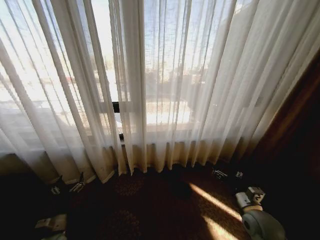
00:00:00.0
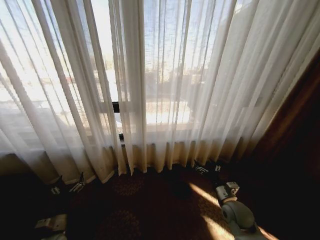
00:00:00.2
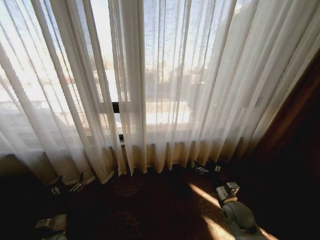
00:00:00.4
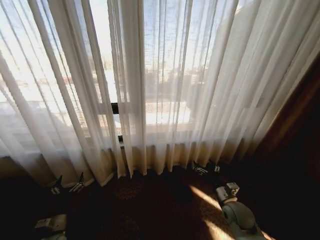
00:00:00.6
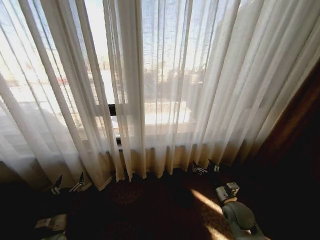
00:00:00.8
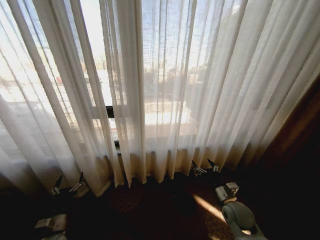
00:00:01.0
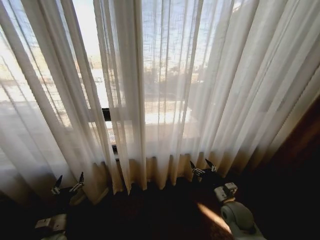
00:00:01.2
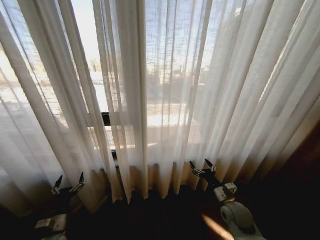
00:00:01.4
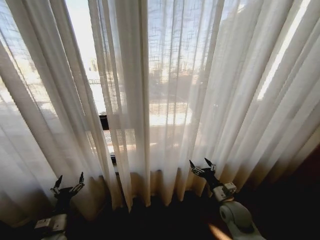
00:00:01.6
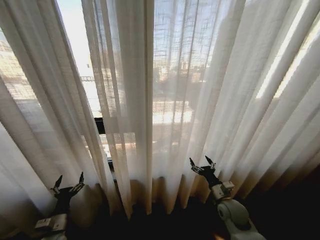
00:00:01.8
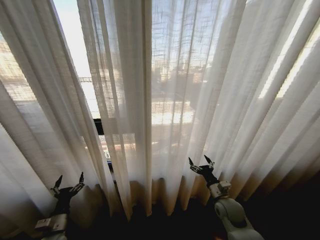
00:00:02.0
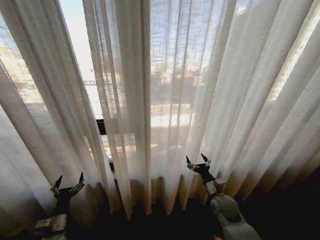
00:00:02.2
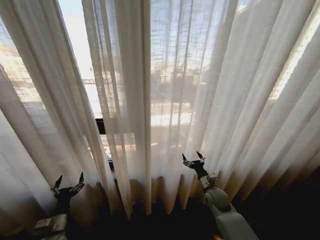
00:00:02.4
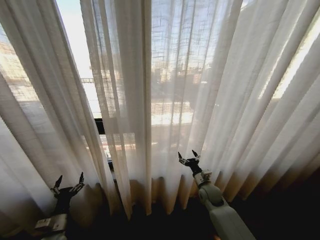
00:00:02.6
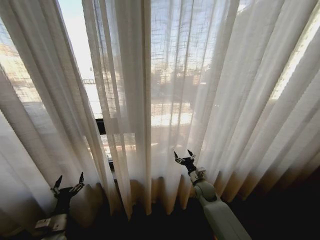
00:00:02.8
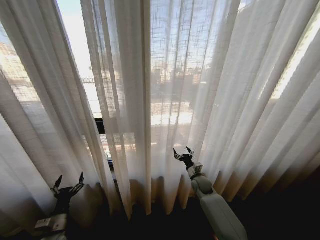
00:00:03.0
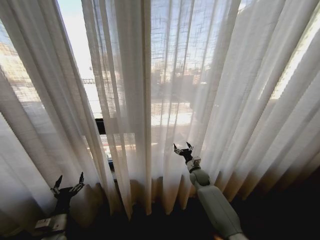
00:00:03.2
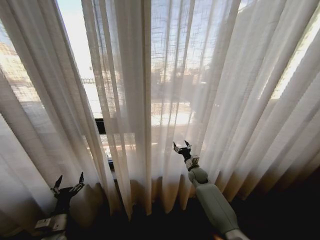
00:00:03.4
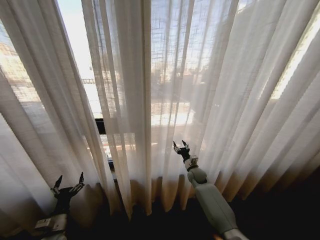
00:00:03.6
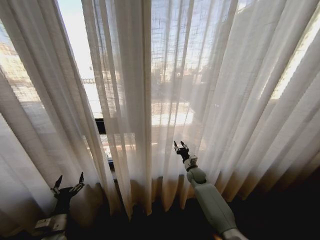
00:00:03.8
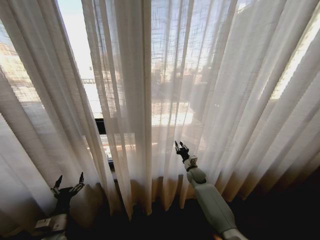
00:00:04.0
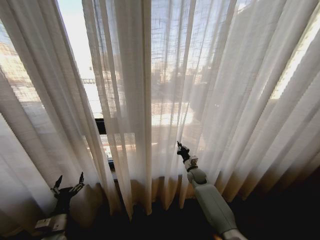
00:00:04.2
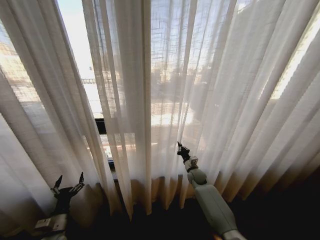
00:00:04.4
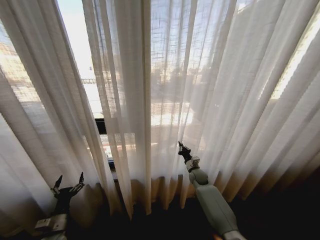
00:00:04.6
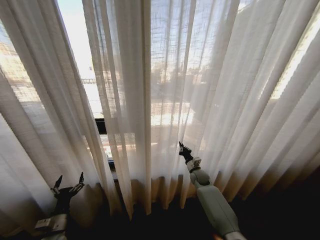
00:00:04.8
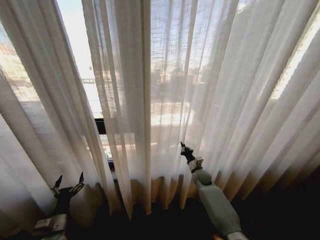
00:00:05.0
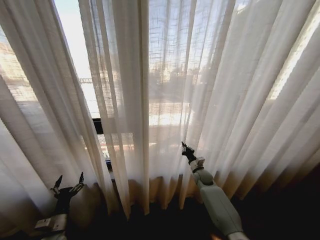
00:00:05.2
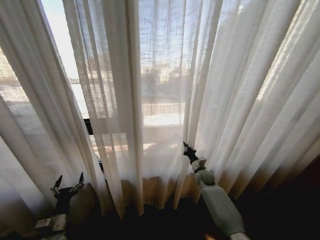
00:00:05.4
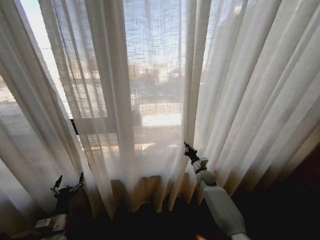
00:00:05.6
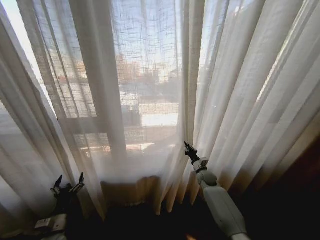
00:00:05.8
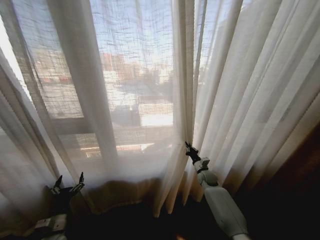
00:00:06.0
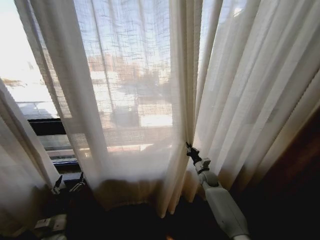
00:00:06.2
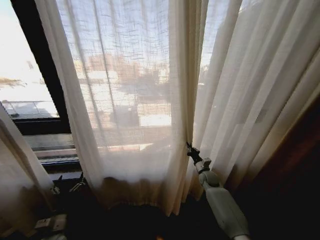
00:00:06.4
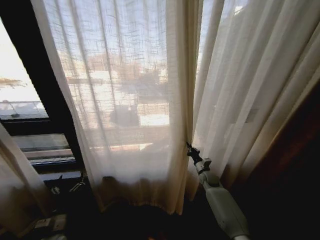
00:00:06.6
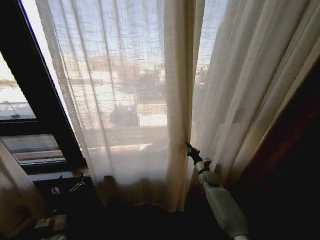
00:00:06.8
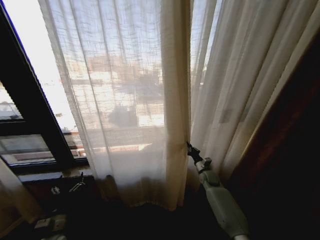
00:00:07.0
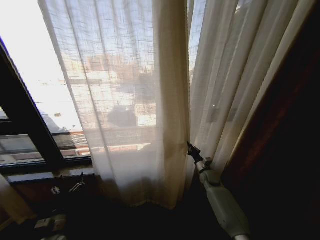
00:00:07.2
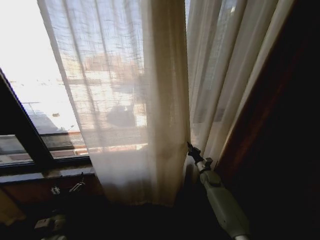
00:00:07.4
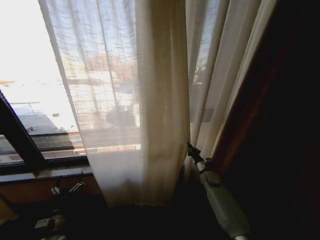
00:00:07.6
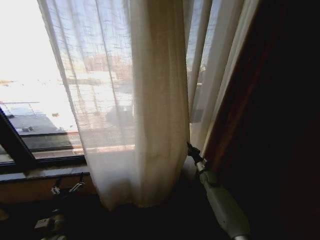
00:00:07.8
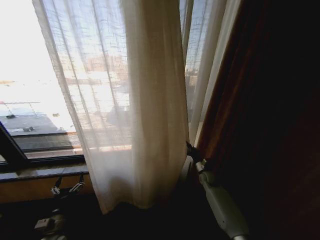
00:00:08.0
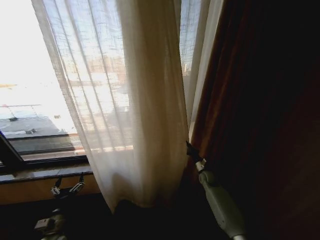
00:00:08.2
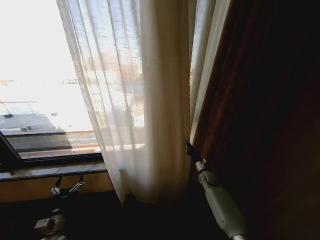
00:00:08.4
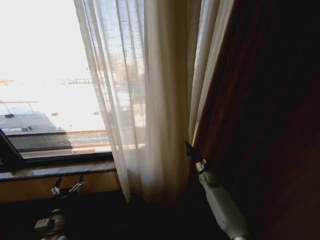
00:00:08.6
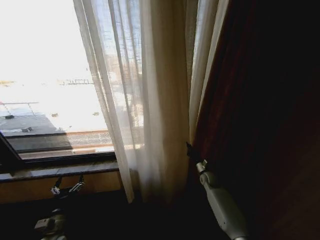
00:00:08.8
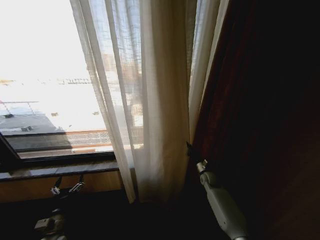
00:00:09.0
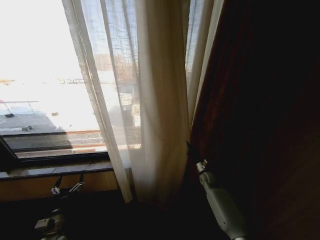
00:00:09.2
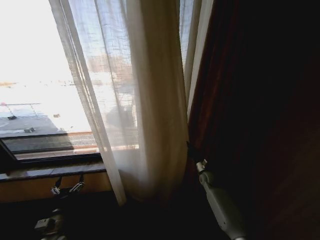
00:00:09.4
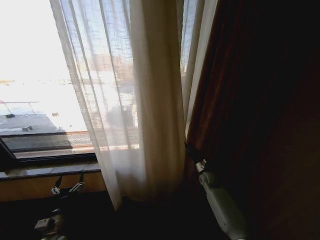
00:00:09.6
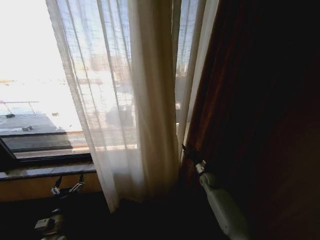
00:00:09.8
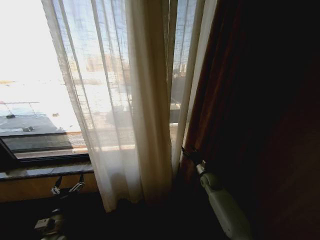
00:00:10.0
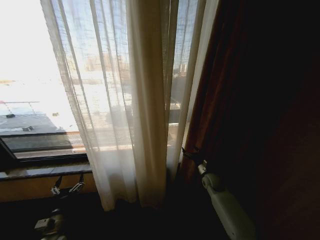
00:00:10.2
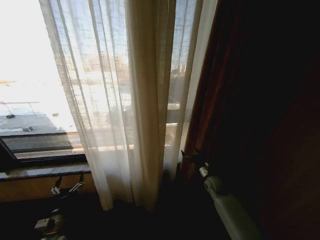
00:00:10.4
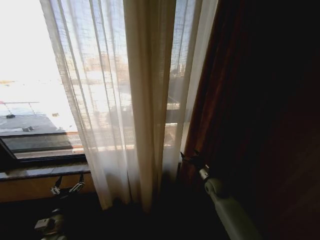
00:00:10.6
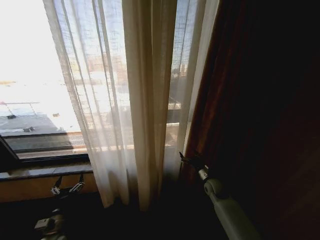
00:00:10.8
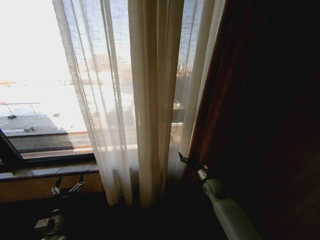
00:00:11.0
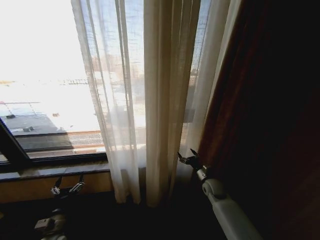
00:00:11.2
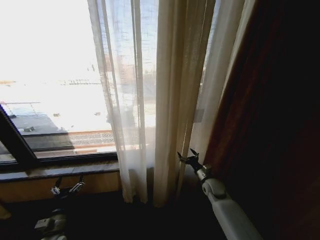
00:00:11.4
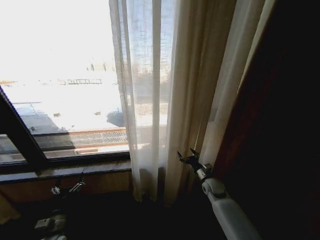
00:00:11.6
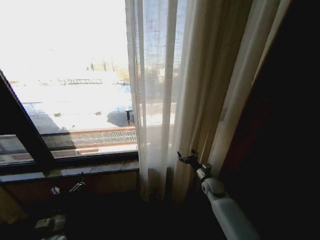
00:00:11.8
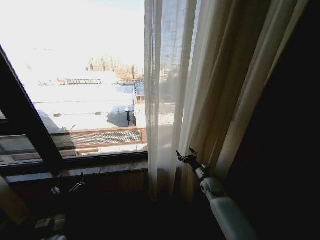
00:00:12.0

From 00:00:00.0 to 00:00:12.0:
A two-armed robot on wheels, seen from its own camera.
Task of the whole recording: Open the curtains by pulling them apart, changing their state from closed to fully open.
From 00:00:01.6 to 00:00:03.0: The right gripper moves forward and to the left, approximately 15 cm.
From 00:00:03.0 to 00:00:04.4: The right gripper goes about 5 cm forward, and closes its fingers.
From 00:00:04.4 to 00:00:06.0: The right gripper travels to the right by roughly 5 cm.
From 00:00:09.0 to 00:00:10.4: The right gripper changes place by approximately 5 cm, and opens.

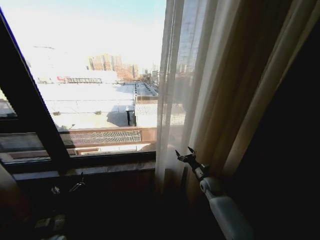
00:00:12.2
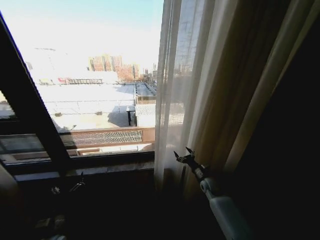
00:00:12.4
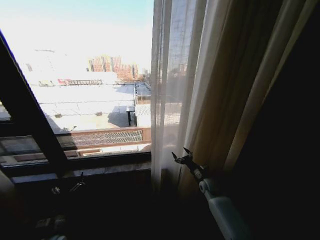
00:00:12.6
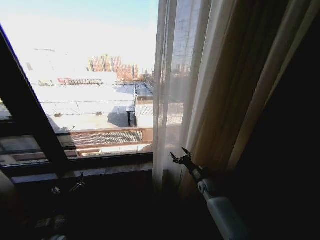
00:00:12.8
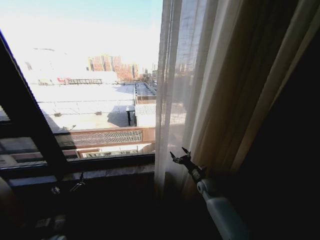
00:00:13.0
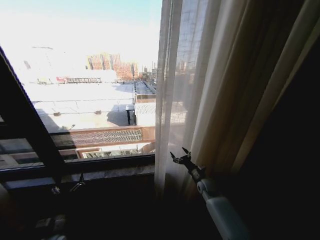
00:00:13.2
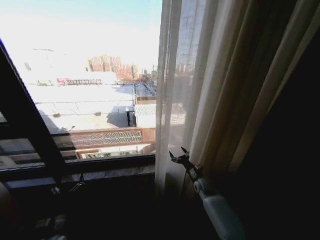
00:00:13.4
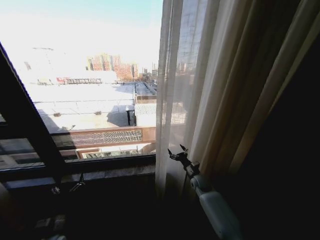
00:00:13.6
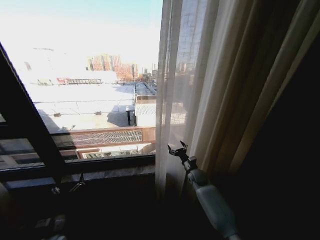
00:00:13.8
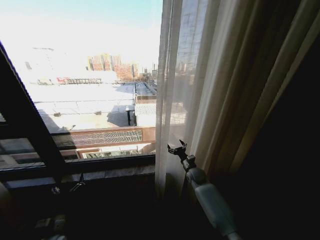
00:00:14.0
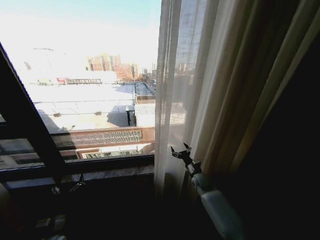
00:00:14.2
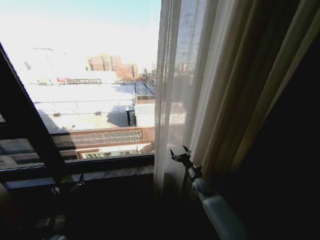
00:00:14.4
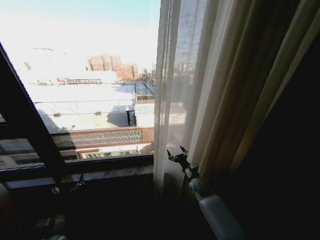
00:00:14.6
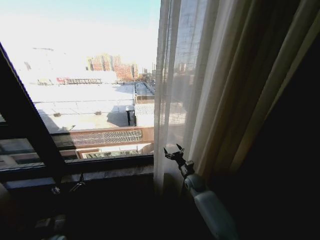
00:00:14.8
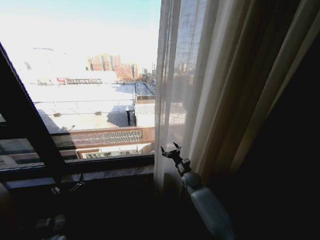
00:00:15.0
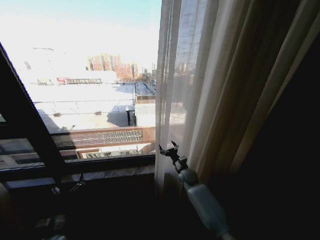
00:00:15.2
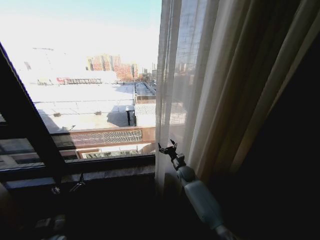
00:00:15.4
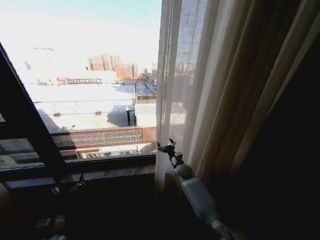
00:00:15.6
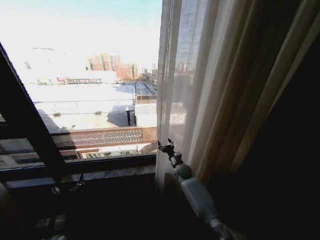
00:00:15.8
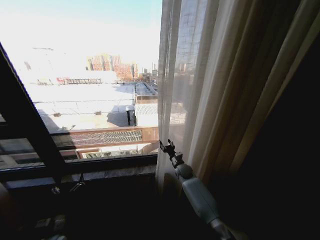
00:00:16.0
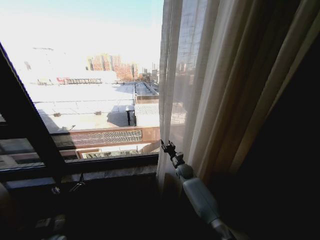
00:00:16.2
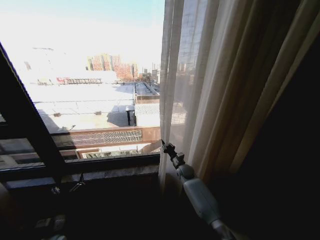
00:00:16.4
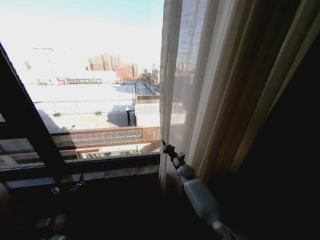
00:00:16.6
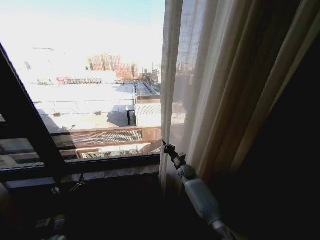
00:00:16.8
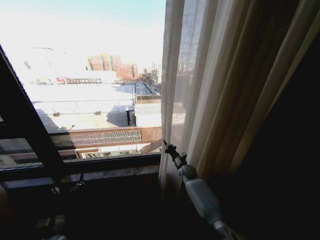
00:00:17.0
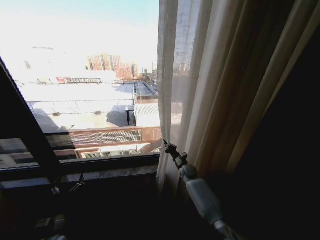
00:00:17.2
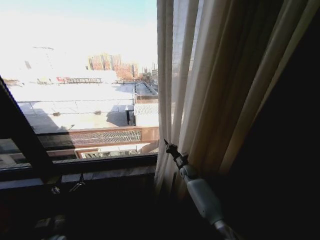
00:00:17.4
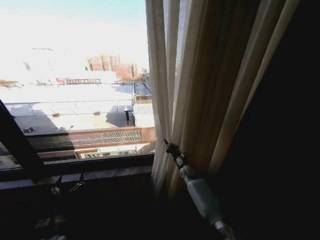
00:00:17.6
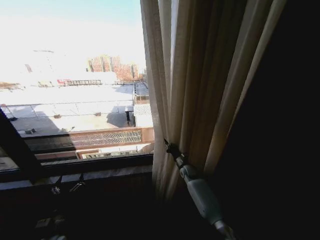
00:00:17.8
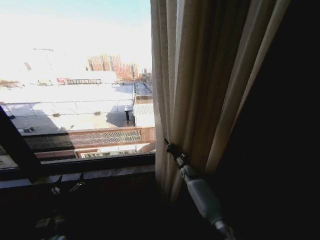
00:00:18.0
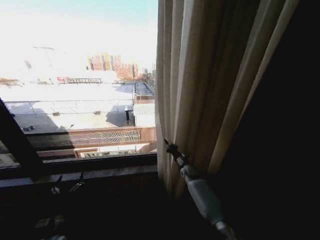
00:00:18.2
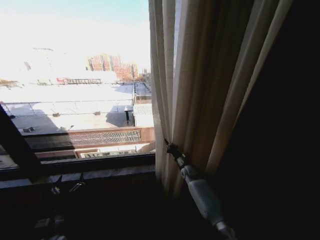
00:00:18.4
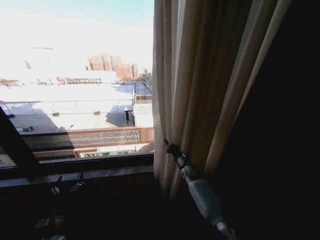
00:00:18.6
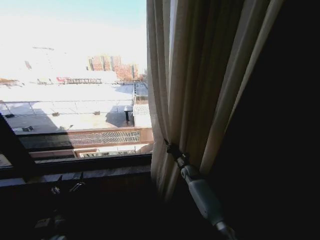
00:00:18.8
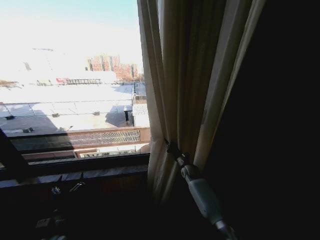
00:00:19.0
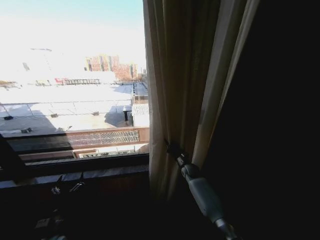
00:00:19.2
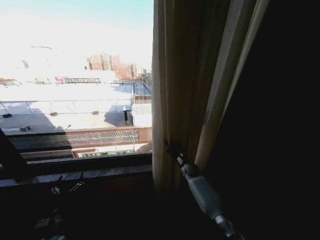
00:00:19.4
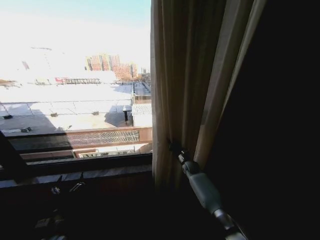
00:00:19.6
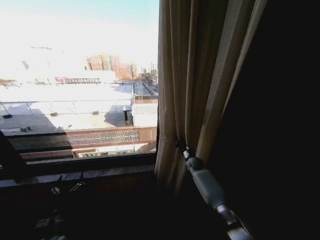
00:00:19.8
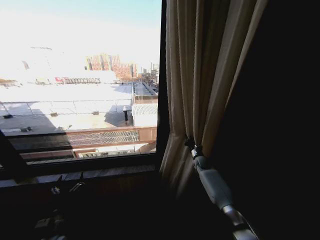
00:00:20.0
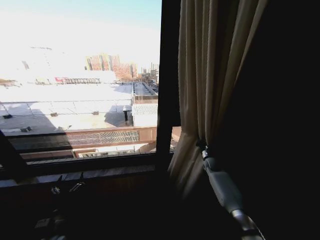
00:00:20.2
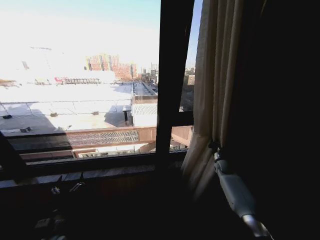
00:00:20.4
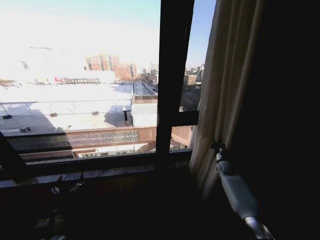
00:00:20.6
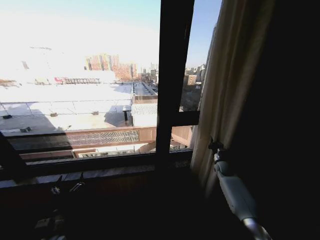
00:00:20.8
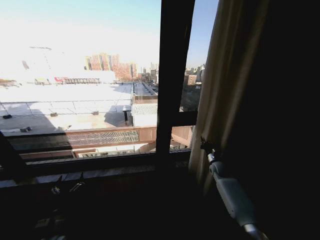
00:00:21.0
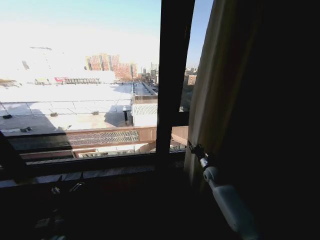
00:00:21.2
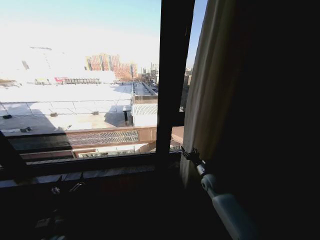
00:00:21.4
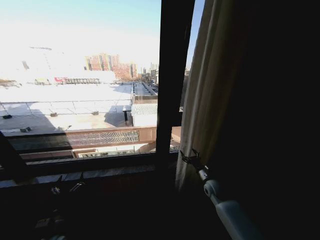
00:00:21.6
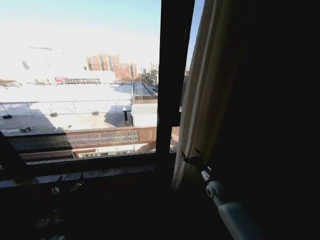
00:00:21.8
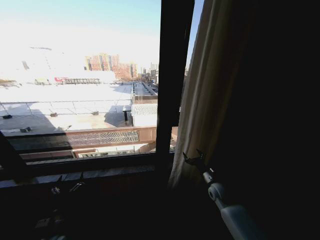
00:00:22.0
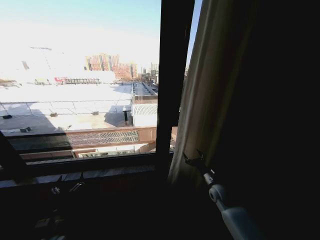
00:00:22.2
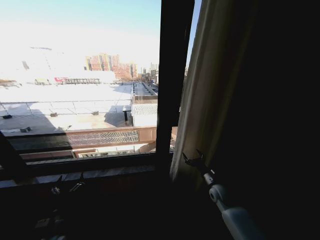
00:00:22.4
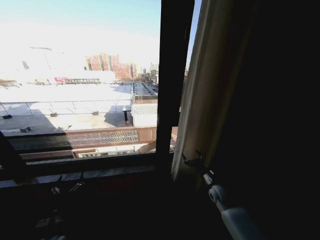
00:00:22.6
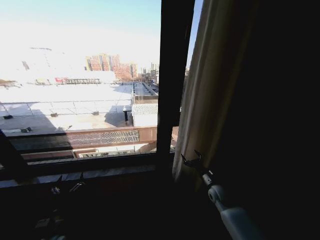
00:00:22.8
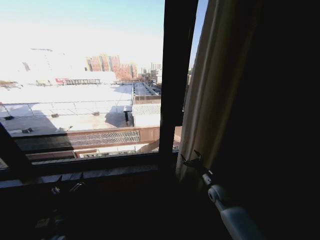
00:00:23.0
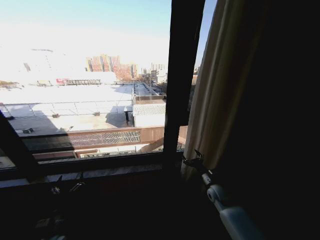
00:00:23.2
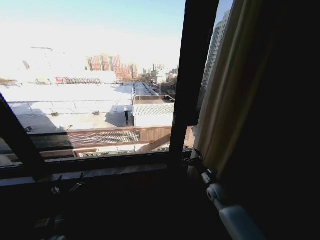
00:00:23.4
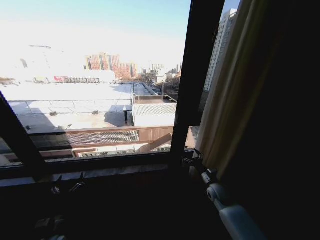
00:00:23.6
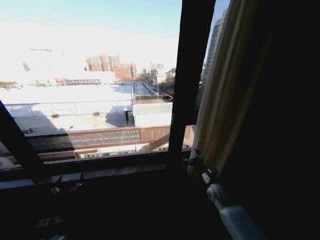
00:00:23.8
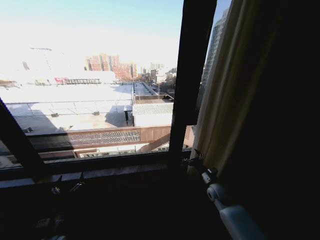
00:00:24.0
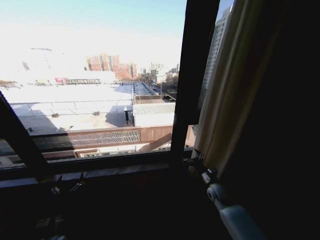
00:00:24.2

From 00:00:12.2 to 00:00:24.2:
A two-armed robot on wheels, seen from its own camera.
Task of the whole recording: Open the curtains by pulling them apart, changing their state from closed to fully open.
From 00:00:12.2 to 00:00:13.8: The right gripper travels to the left by about 5 cm.
From 00:00:13.8 to 00:00:15.2: The right gripper shifts roughly 5 cm to the left.
From 00:00:15.2 to 00:00:16.6: The right gripper closes.
From 00:00:18.2 to 00:00:19.8: The right gripper travels to the right by some 5 cm.
From 00:00:19.8 to 00:00:21.2: The right gripper heads backward and to the right, covering some 10 cm.
From 00:00:21.2 to 00:00:22.6: The right gripper travels backward by some 10 cm, and opens up.
From 00:00:22.6 to 00:00:24.2: Both grippers stay about where they are.
